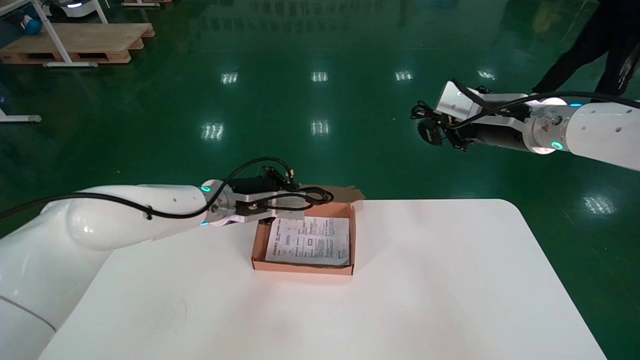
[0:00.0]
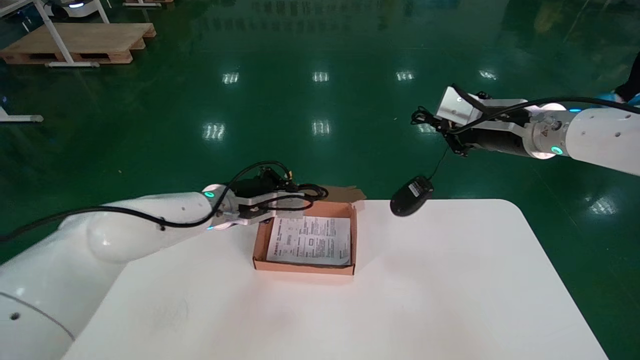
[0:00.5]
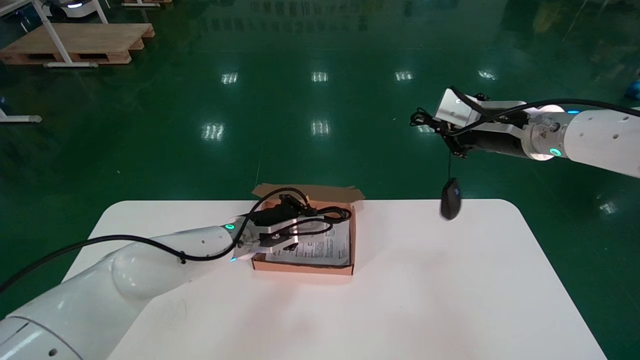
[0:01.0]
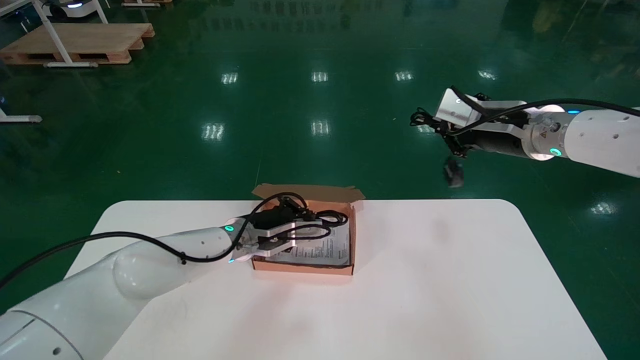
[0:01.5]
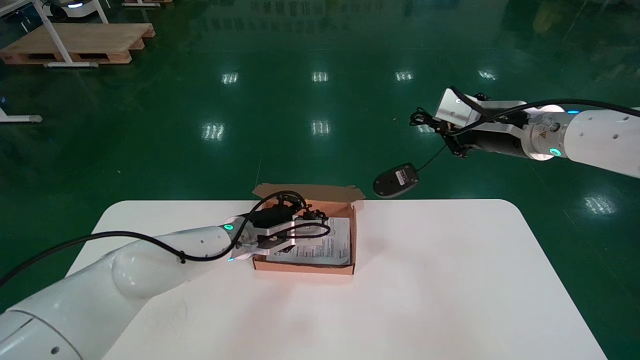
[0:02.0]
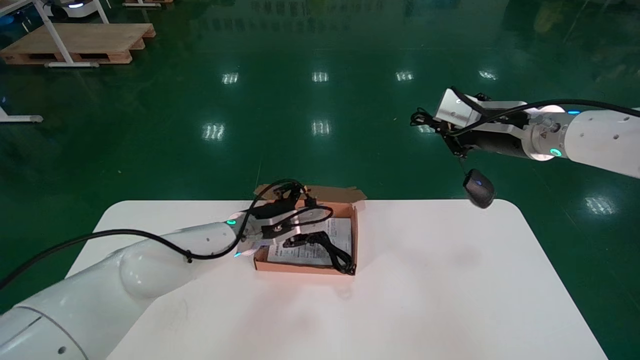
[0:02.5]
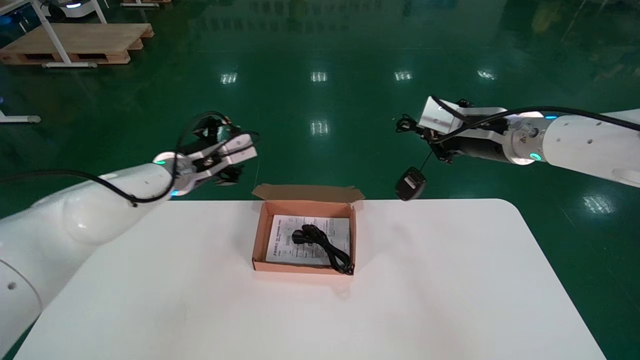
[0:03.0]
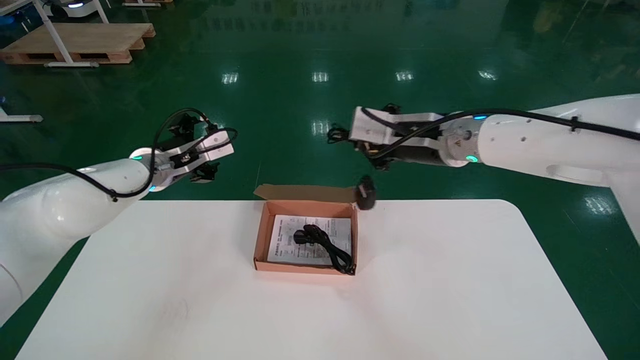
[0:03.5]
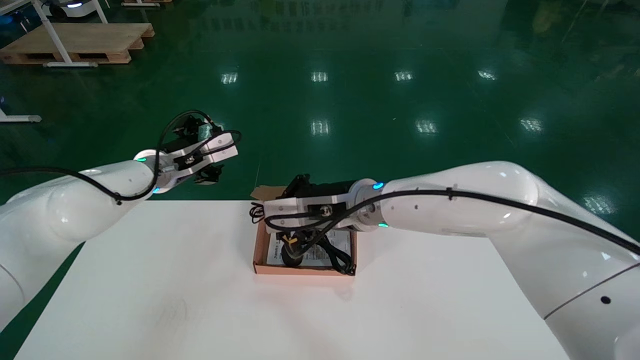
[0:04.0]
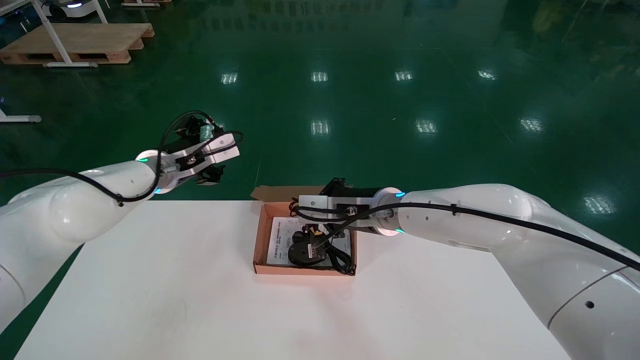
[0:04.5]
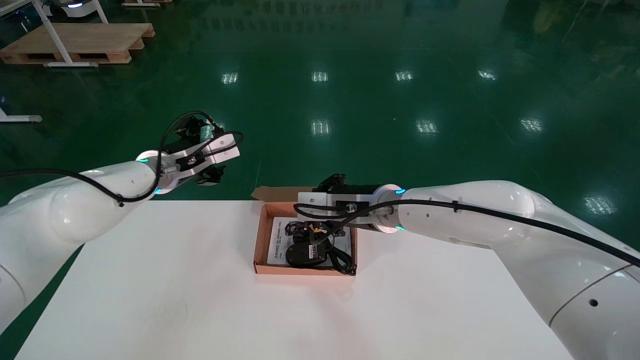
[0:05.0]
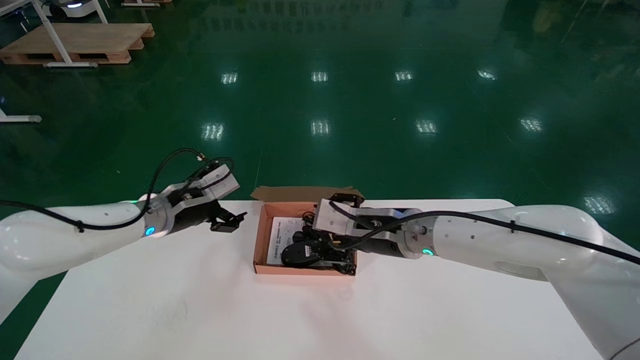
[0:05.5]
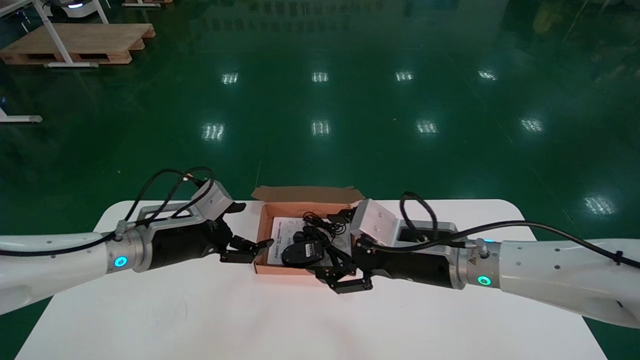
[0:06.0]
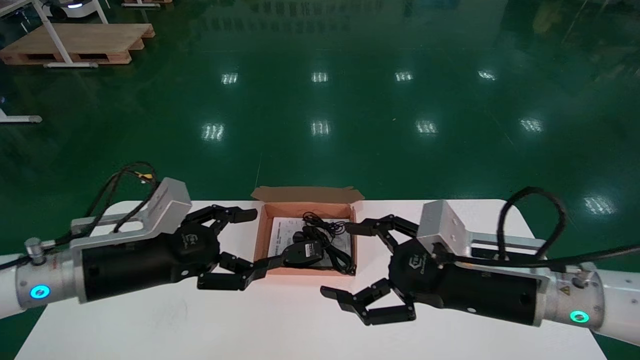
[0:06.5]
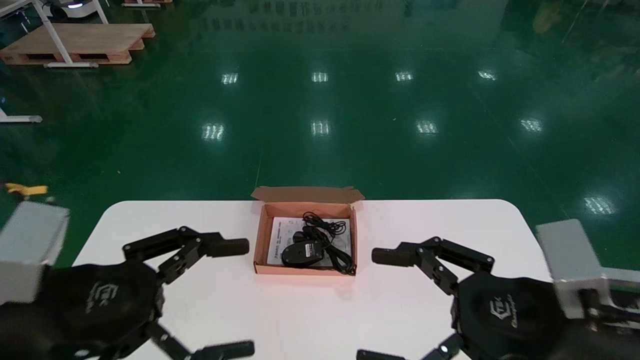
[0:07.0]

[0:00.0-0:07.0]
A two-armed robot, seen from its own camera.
Step, 0:00.0 to 0:04.5: Place the mouse and power cord into the box.
0:00.0 to 0:02.0: The left gripper shifts approximately 5 cm downward.
0:02.0 to 0:03.5: The left gripper travels to the left and upward by approximately 15 cm, and opens up; the right gripper heads to the left, covering about 15 cm.
0:03.5 to 0:05.0: The right gripper heads downward and to the left, covering some 15 cm.
0:05.0 to 0:07.0: The right gripper shifts some 30 cm backward and to the right, and opens its fingers. Meanwhile the left gripper shifts about 30 cm backward.
